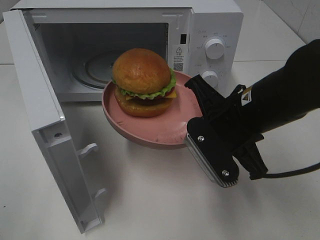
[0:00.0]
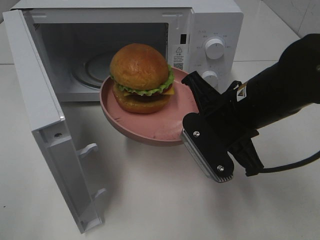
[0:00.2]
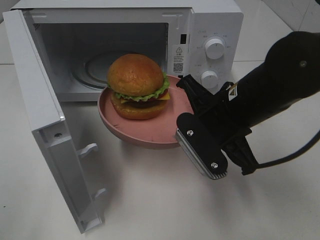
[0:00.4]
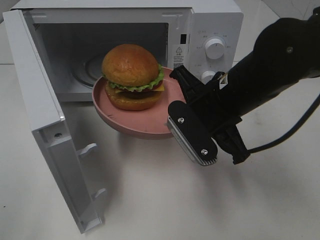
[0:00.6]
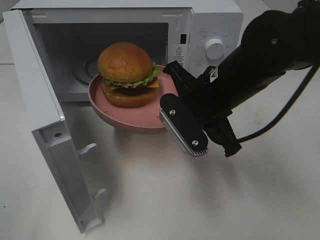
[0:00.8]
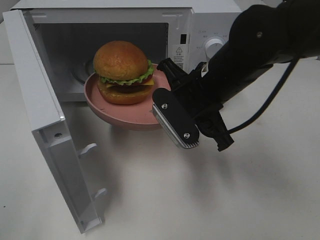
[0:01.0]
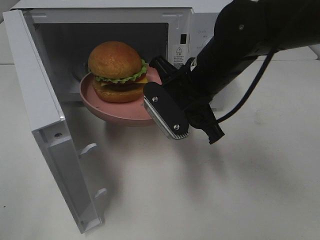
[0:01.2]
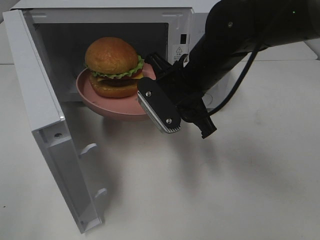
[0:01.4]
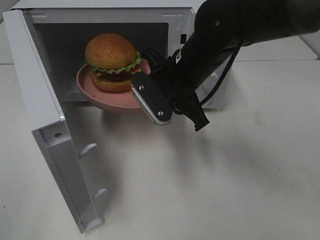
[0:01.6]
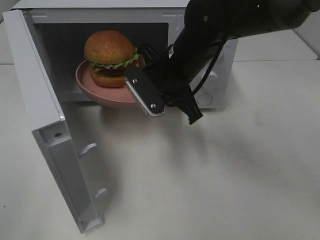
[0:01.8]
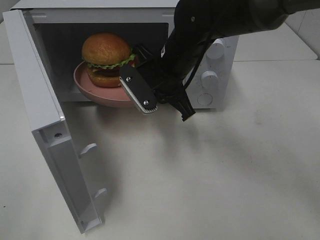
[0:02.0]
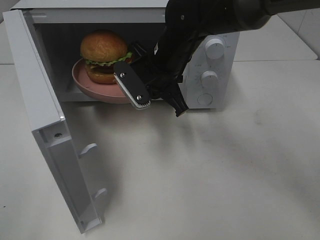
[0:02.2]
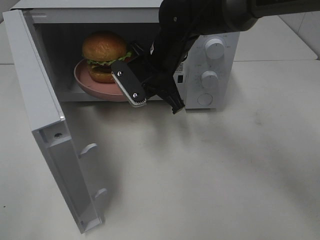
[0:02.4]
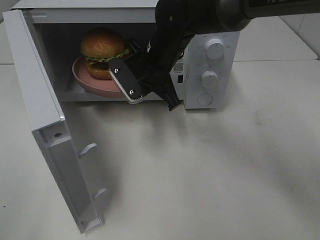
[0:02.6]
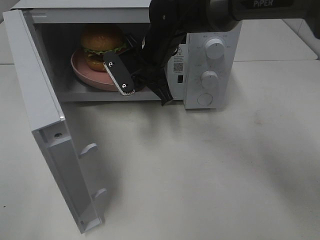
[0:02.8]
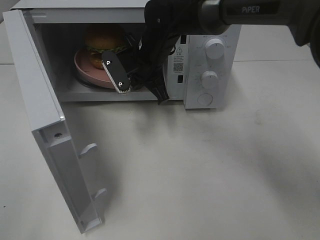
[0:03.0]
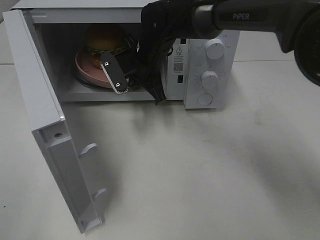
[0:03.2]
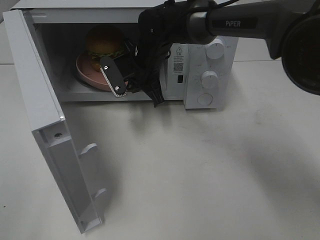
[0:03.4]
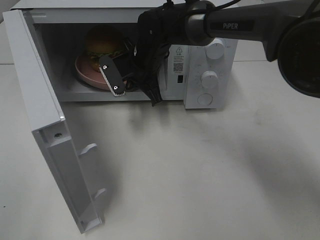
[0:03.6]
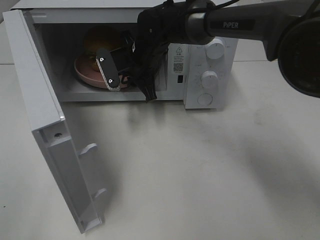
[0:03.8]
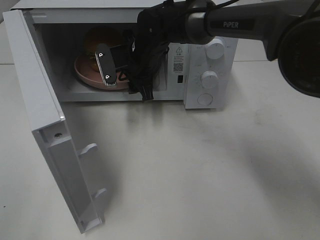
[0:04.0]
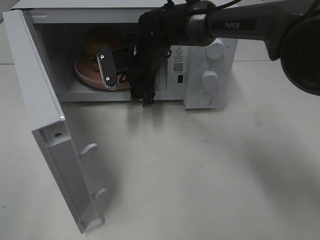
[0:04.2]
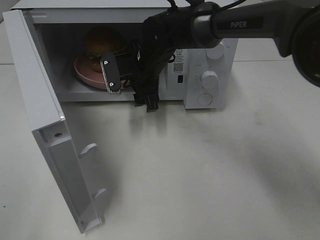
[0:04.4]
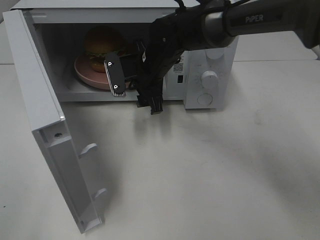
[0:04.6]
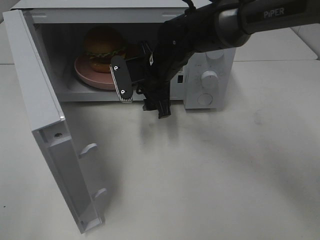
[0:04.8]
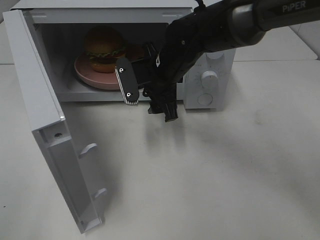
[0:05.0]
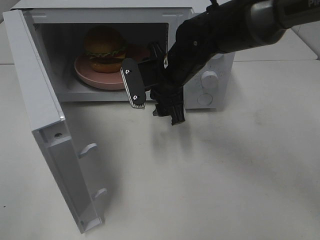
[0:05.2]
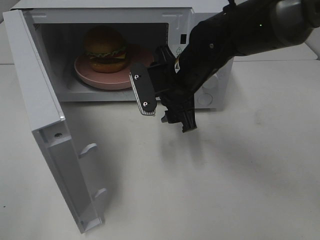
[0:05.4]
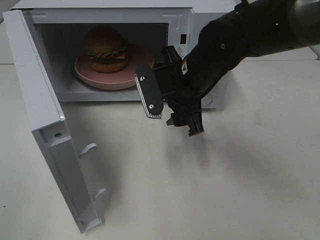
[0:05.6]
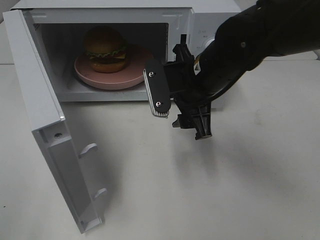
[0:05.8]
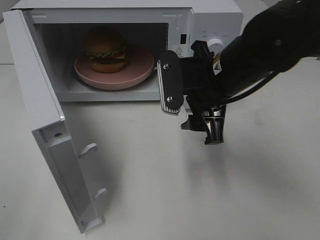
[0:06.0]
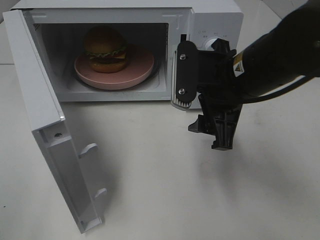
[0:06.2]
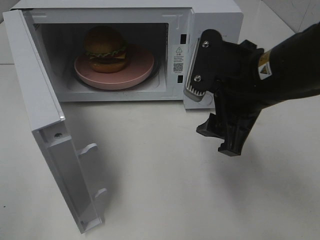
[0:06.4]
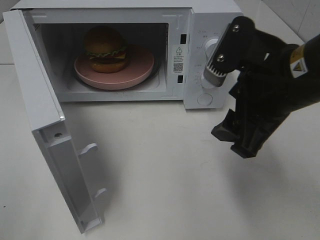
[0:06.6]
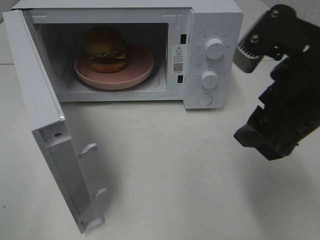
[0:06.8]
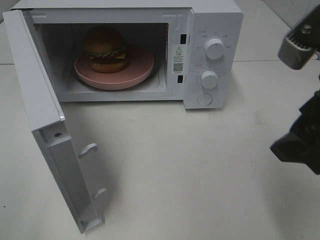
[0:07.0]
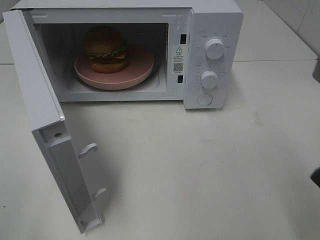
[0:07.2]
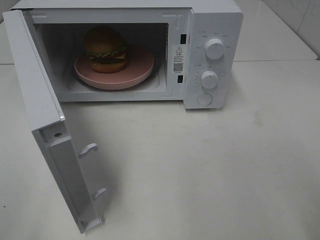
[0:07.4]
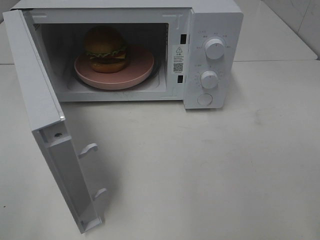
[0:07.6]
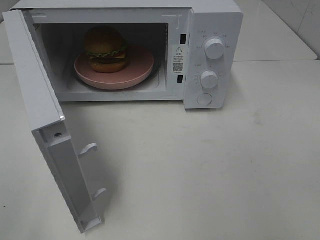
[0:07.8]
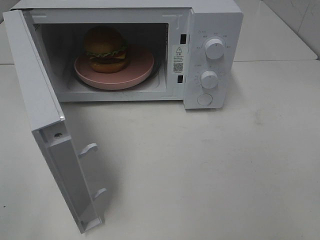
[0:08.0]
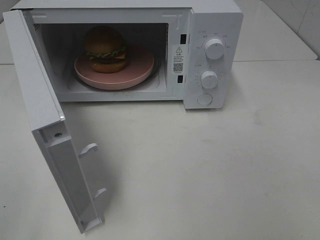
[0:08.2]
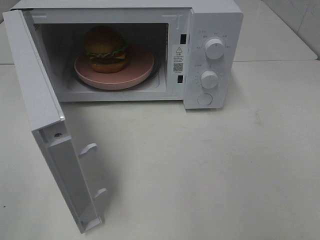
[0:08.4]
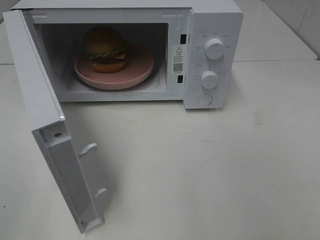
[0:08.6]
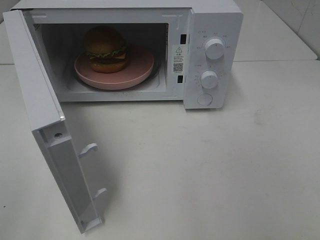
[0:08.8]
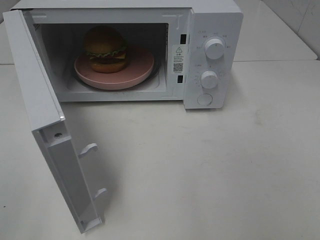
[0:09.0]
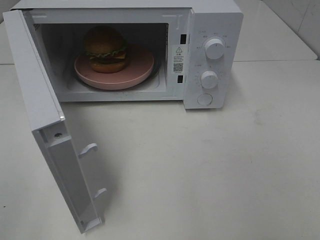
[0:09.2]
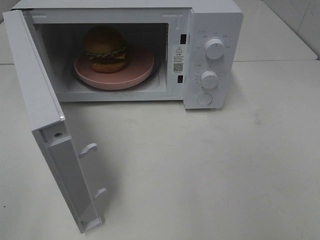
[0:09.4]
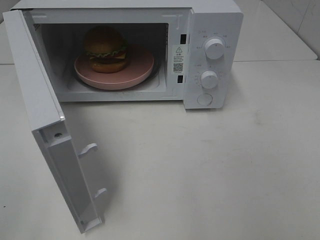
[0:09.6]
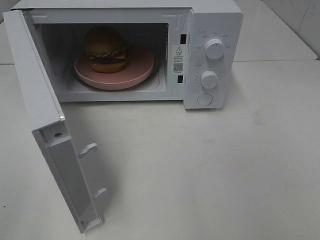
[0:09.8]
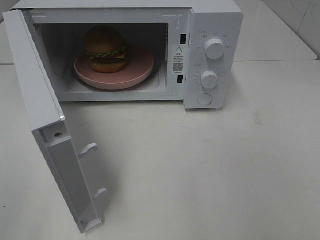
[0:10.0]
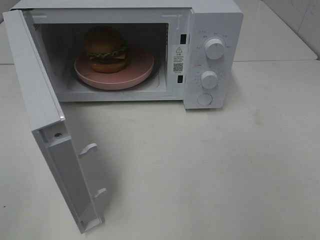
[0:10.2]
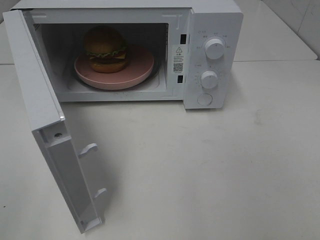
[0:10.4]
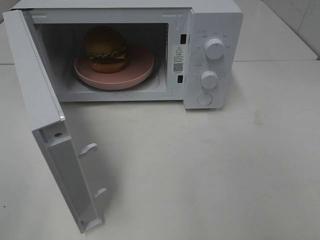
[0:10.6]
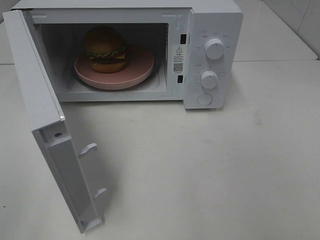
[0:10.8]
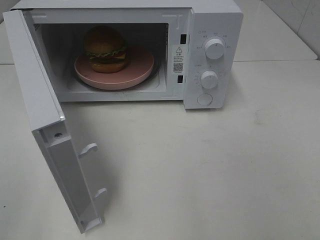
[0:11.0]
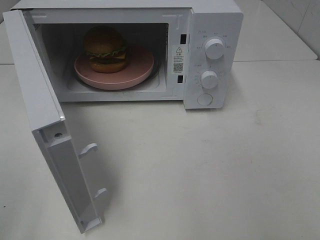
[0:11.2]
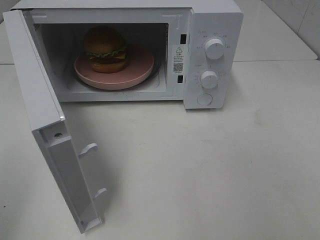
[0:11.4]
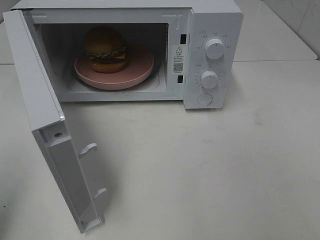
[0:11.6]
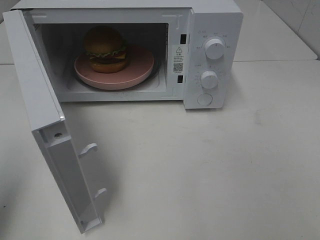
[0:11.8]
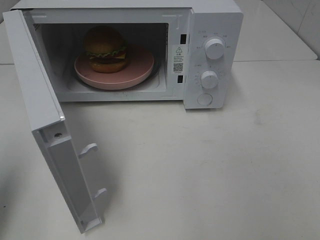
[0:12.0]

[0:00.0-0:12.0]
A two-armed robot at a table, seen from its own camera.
Task of the whole recording: Heat the burger.
Step, 0:00.0 to 0:04.0: Right hand: place the plate in the microwave.
0:00.0 to 0:01.6: The right gripper moves forward and to the left, approximately 10 cm.
0:01.6 to 0:03.0: The right gripper goes approximately 10 cm forward and to the left.
0:03.0 to 0:04.4: The right gripper opens up.
0:04.4 to 0:06.0: The right gripper goes about 20 cm backward, to the right and upward.
0:06.0 to 0:07.6: The right gripper is displaced backward, to the right and upward by approximately 25 cm.
0:09.0 to 0:10.4: The two grippers keep their place.
0:10.4 to 0:12.0: The left gripper goes some 15 cm forward, and closes its fingers.

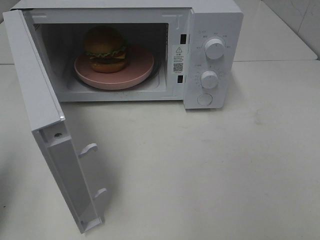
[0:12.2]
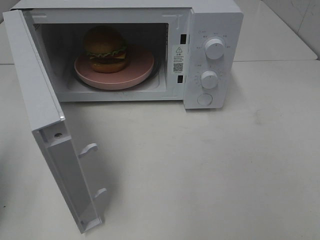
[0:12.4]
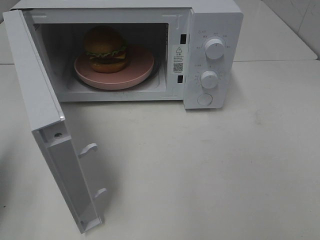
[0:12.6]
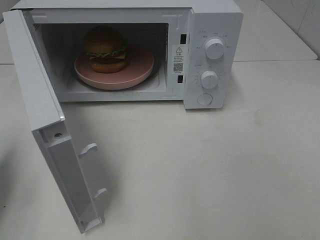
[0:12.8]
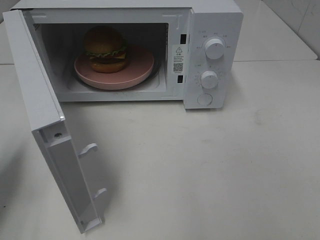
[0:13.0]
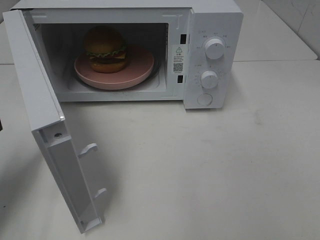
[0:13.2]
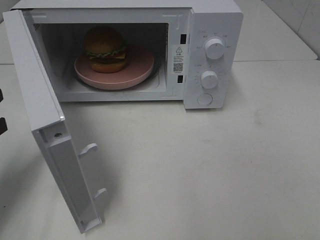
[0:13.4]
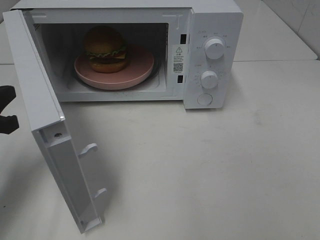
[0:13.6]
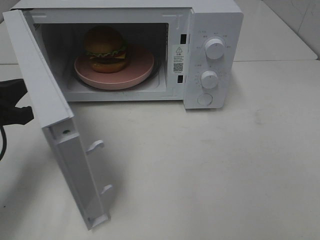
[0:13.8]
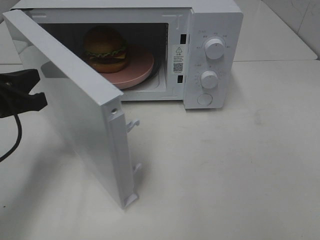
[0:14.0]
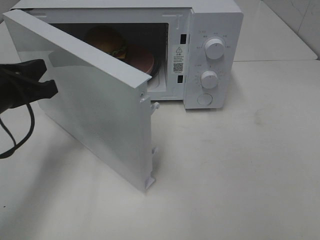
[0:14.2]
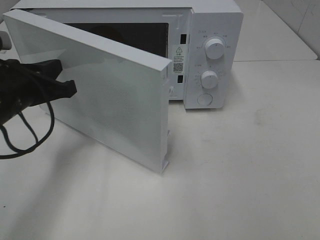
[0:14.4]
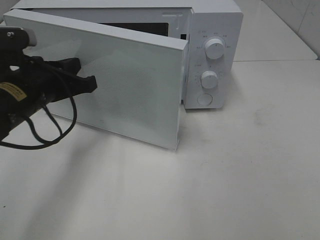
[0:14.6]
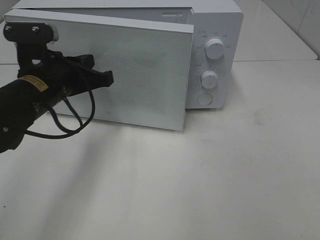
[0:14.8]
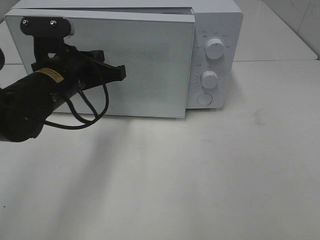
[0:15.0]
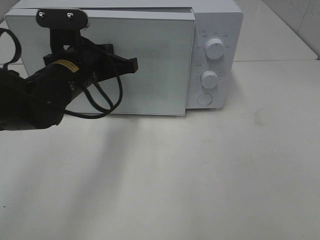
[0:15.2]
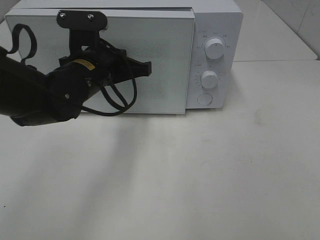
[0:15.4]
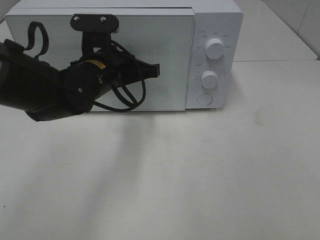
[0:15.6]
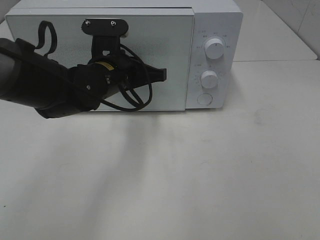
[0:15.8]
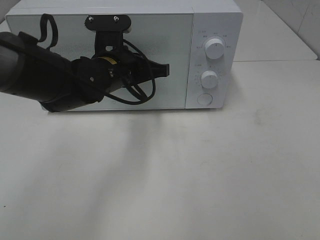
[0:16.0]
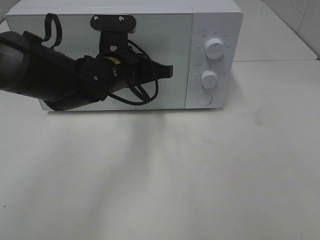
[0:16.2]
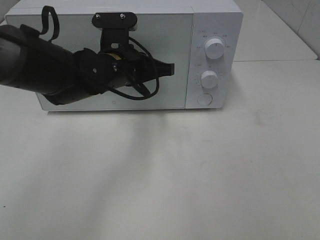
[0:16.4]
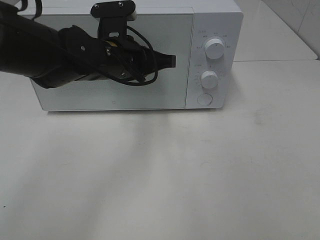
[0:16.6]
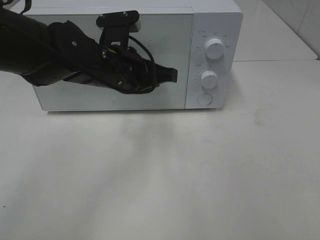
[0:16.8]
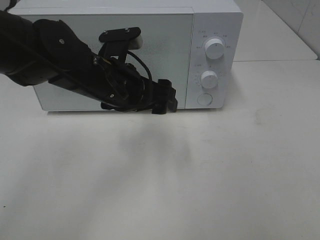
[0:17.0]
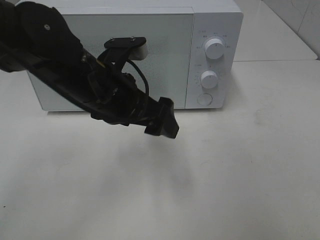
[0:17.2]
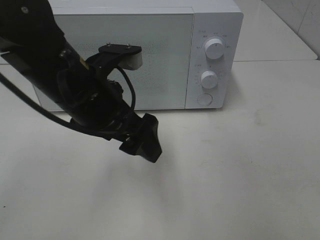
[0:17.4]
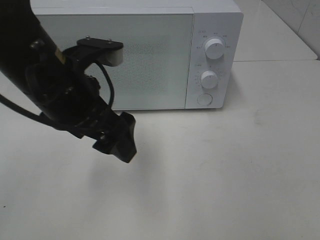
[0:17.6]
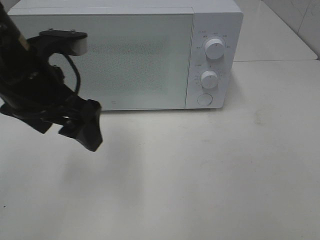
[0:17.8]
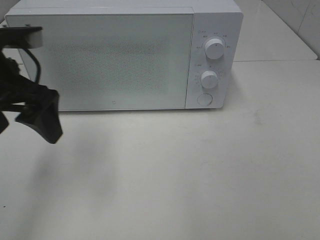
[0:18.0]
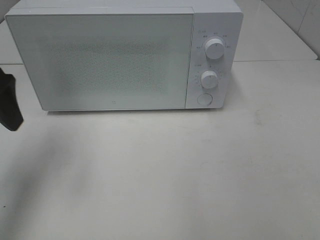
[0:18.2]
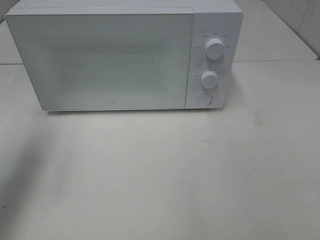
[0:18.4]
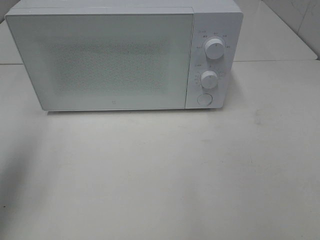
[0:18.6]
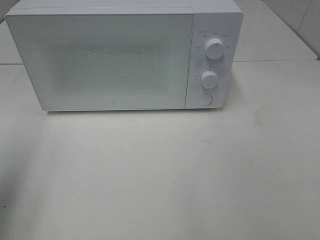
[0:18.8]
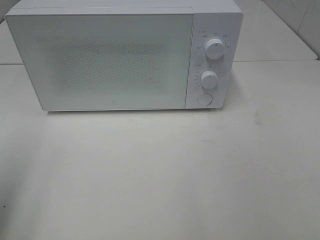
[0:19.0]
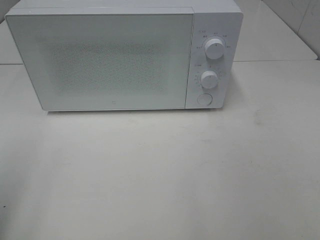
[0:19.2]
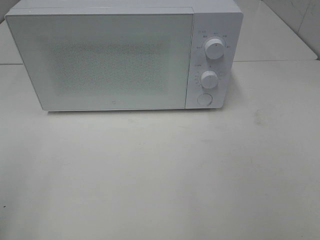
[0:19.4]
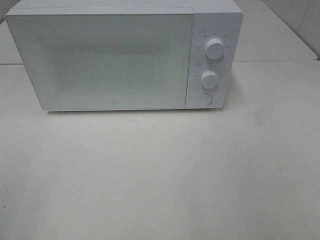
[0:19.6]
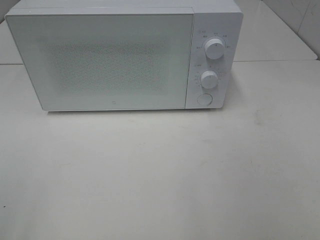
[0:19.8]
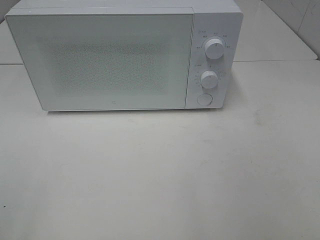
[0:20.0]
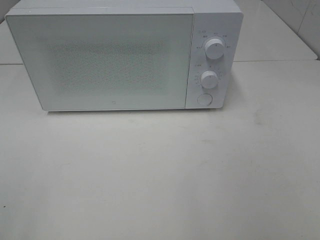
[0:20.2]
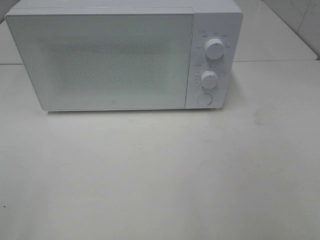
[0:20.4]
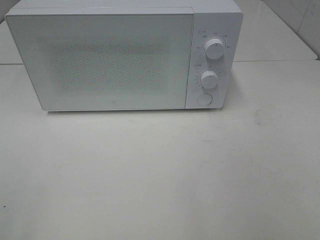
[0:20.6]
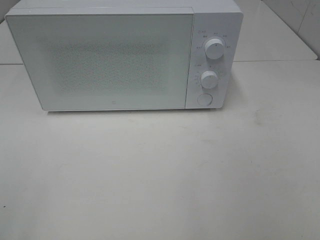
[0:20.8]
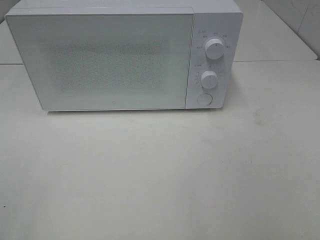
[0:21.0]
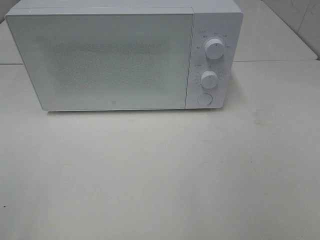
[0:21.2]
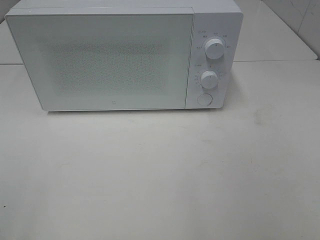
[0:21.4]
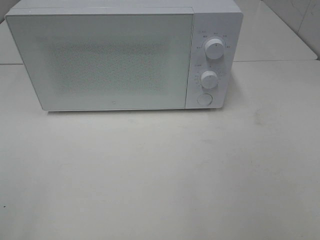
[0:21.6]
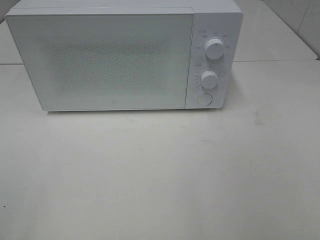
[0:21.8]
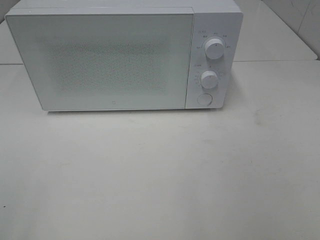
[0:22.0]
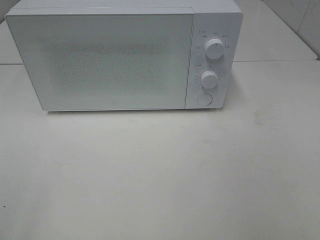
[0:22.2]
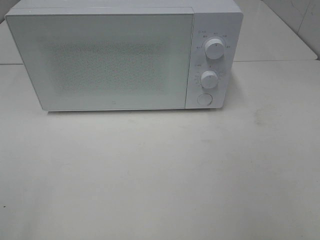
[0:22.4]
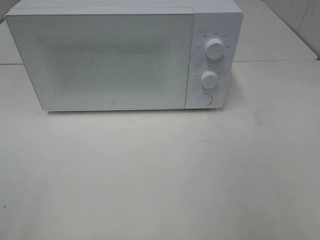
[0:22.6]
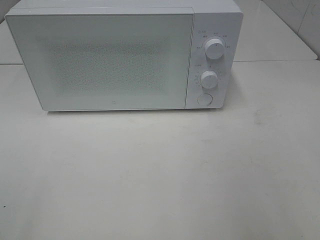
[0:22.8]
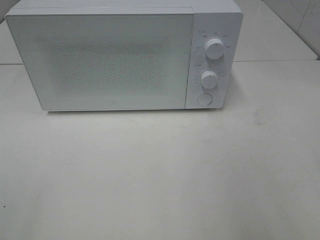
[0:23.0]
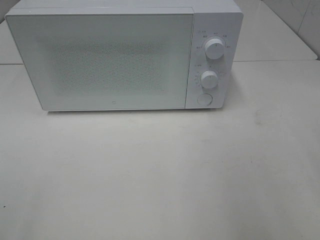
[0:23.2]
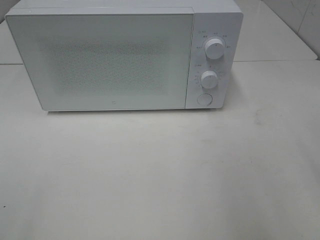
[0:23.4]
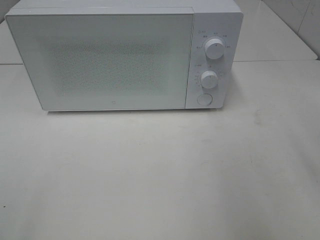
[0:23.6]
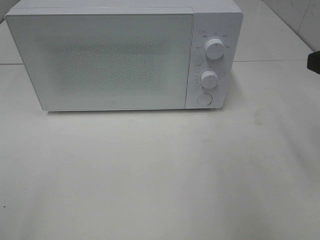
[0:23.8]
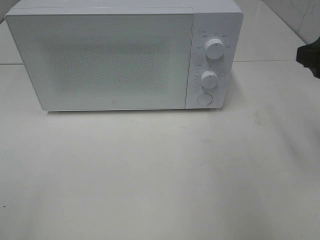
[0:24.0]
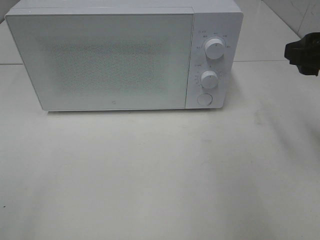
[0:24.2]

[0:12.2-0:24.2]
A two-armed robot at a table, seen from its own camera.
Task of the whole recording: Heat the burger.
Step, 0:12.2 to 0:16.8: Left hand: close the microwave door.
0:12.2 to 0:13.8: The left gripper goes approximately 15 cm forward, downward and to the right.
0:13.8 to 0:15.2: The left gripper is displaced to the right and forward by about 15 cm.
0:15.2 to 0:16.6: The left gripper is displaced to the right by approximately 5 cm.
0:16.6 to 0:18.2: The left gripper travels to the left and upward by approximately 25 cm, and opens up.
0:18.2 to 0:19.8: The left gripper heads backward, covering about 25 cm.
0:19.8 to 0:21.2: Neither gripper changes place.
0:22.6 to 0:24.2: The right gripper moves forward, some 20 cm.
